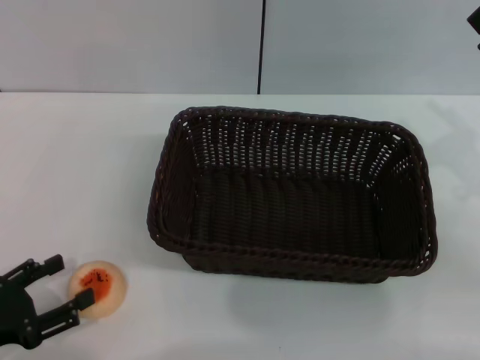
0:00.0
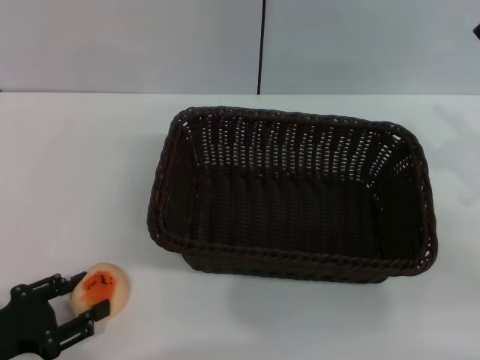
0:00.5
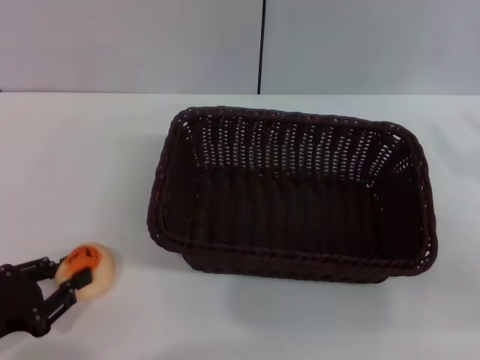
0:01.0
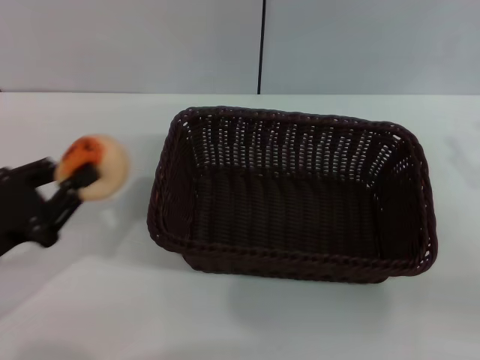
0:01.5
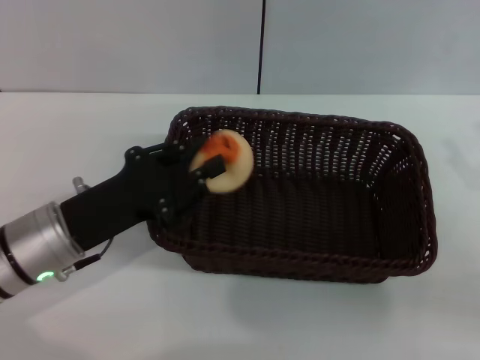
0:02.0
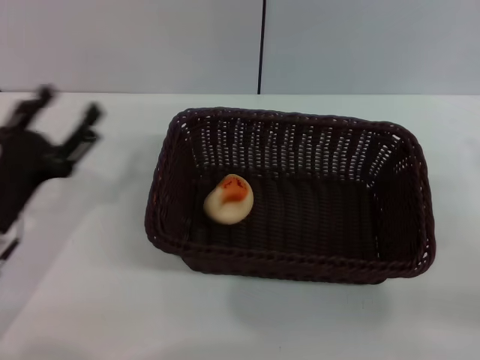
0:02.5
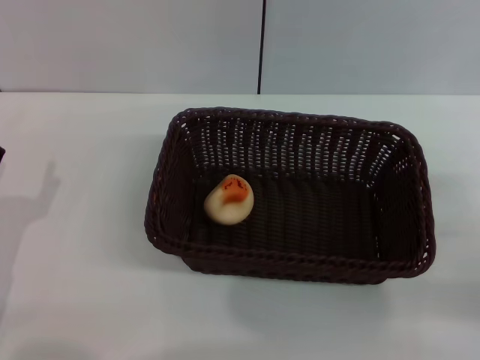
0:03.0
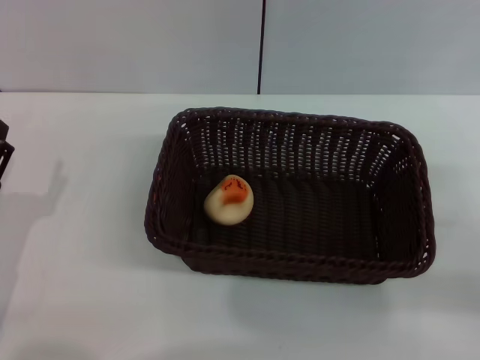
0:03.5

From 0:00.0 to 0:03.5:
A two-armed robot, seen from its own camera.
Step, from 0:00.0 to 0:01.5: Pick up the egg yolk pastry with the left gripper.
From 0:00.0 to 0:02.0: The right gripper changes place by about 5 cm. Meanwhile the left gripper is displaced to the right and forward by approximately 15 cm, and closes.
From 0:02.0 to 0:03.5: The left gripper moves to the left and backward, about 10 cm, and opens its fingers.
